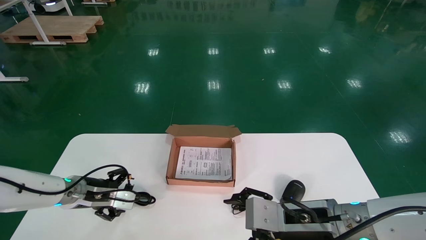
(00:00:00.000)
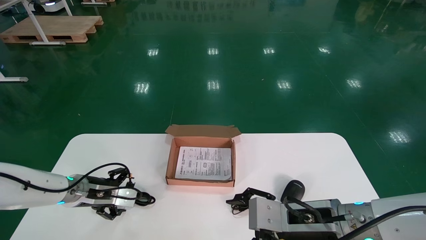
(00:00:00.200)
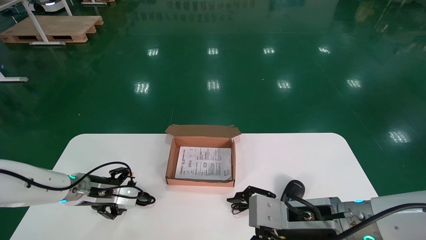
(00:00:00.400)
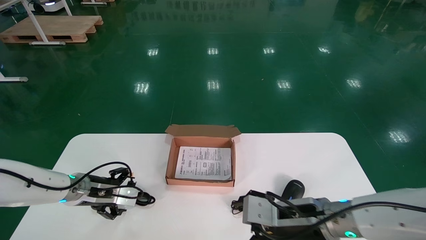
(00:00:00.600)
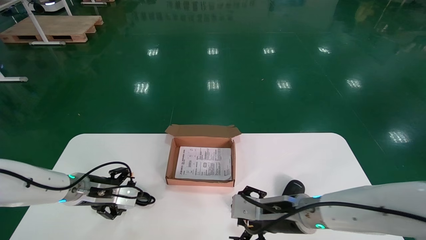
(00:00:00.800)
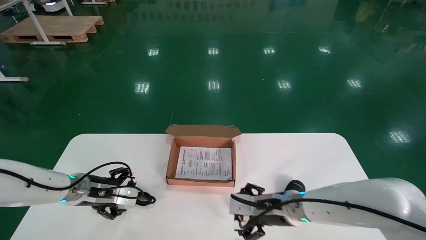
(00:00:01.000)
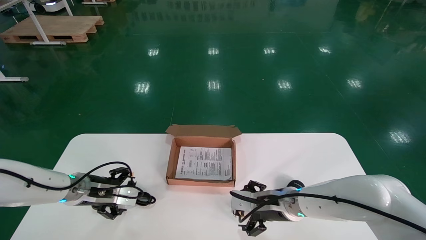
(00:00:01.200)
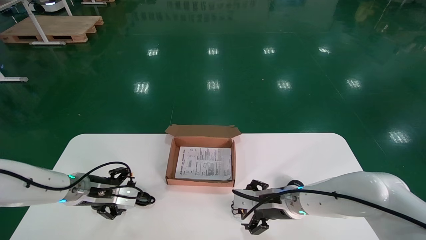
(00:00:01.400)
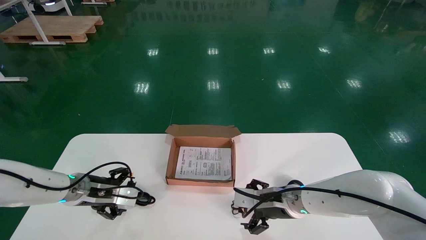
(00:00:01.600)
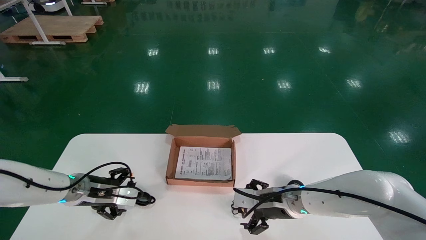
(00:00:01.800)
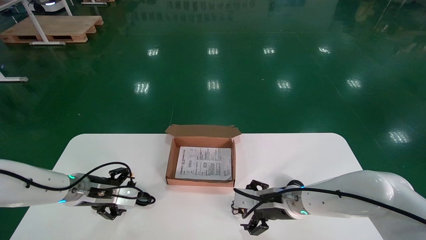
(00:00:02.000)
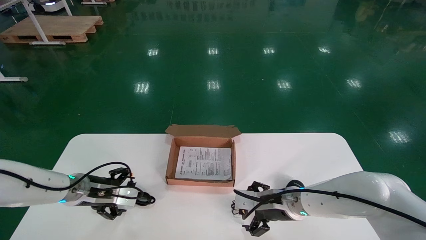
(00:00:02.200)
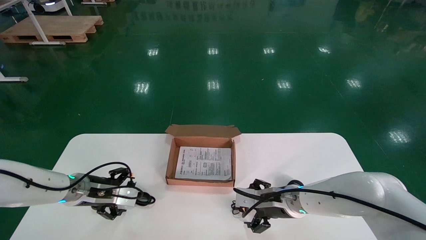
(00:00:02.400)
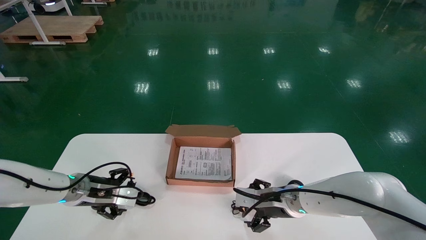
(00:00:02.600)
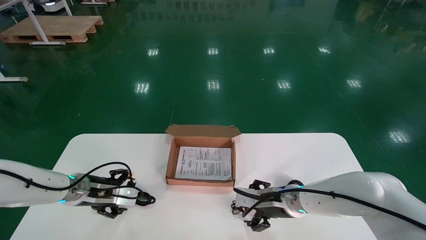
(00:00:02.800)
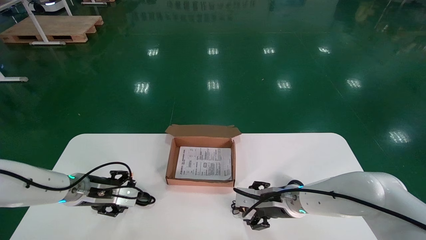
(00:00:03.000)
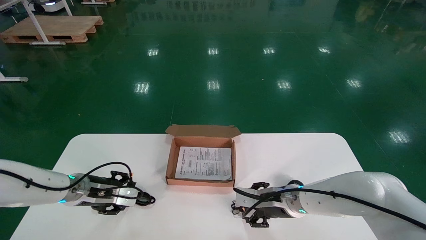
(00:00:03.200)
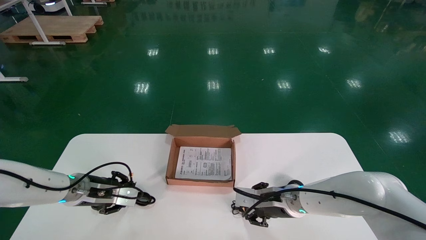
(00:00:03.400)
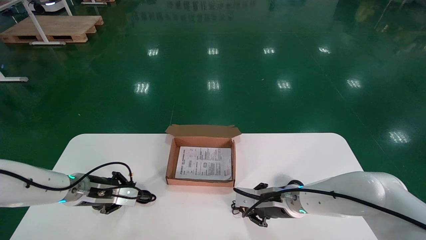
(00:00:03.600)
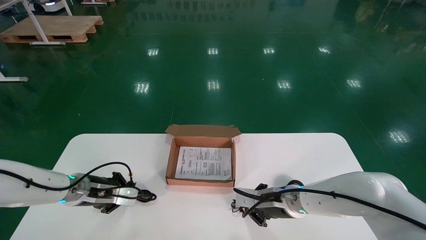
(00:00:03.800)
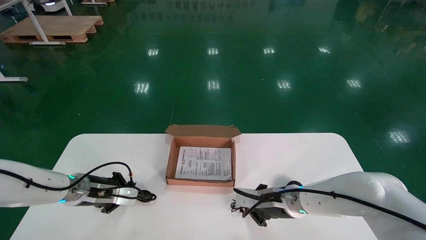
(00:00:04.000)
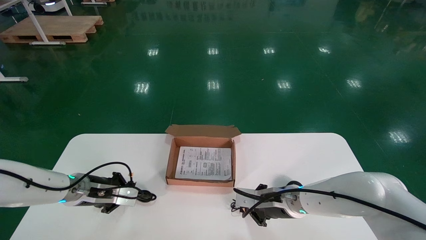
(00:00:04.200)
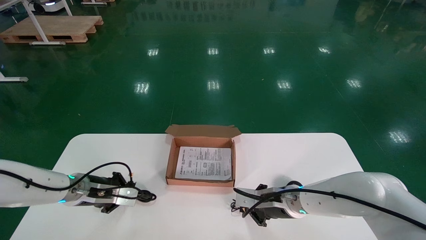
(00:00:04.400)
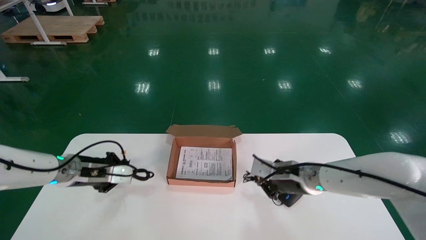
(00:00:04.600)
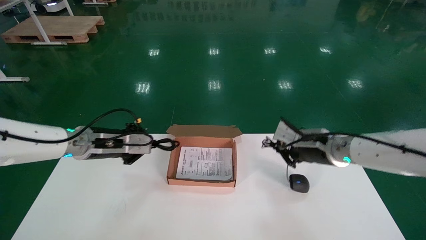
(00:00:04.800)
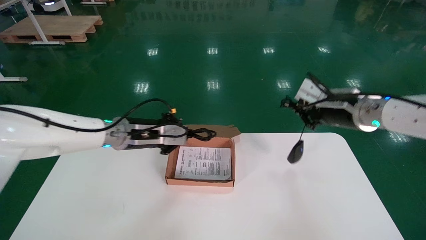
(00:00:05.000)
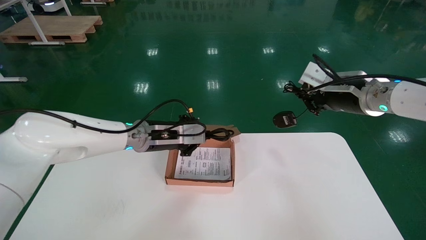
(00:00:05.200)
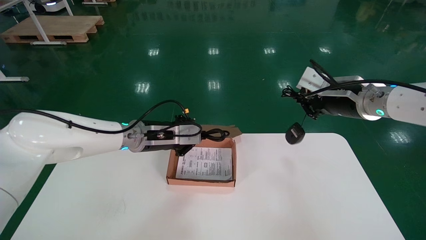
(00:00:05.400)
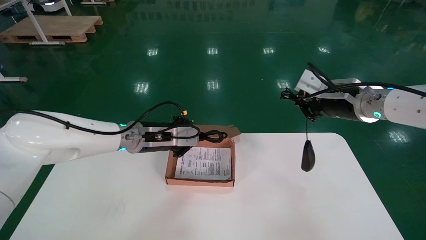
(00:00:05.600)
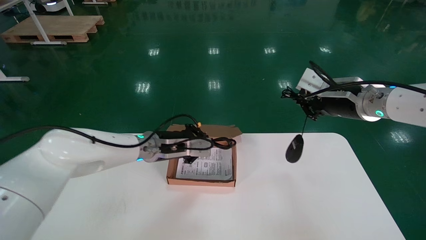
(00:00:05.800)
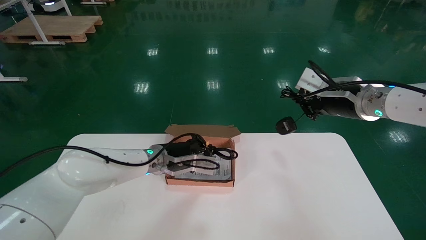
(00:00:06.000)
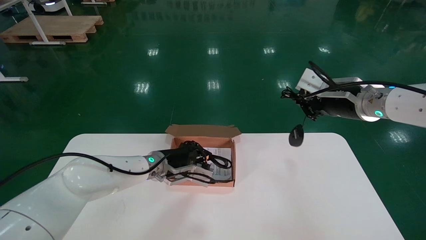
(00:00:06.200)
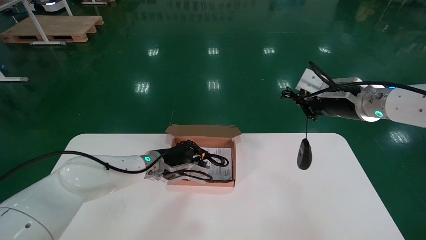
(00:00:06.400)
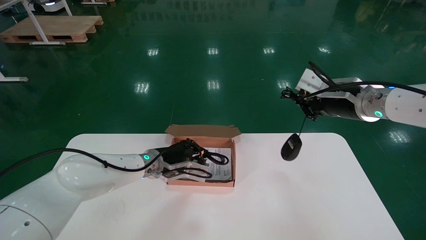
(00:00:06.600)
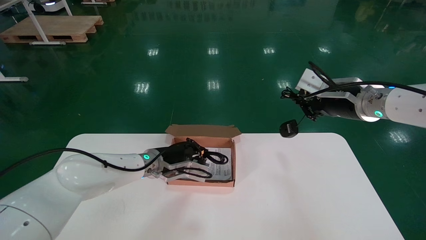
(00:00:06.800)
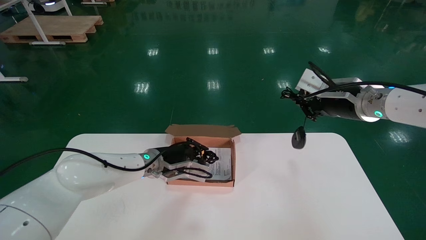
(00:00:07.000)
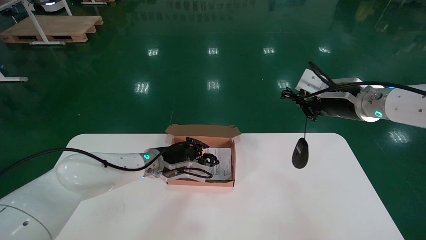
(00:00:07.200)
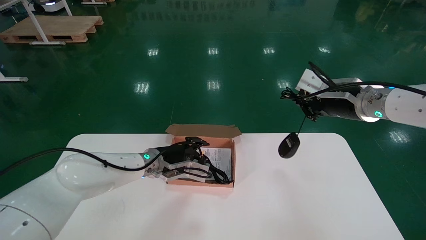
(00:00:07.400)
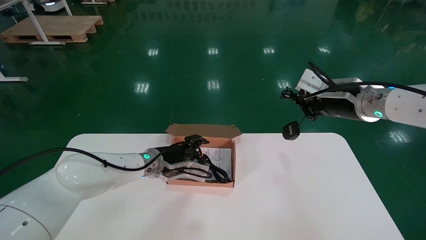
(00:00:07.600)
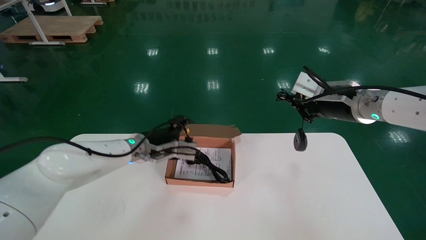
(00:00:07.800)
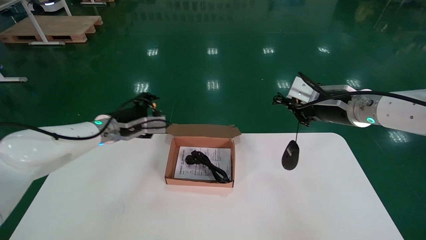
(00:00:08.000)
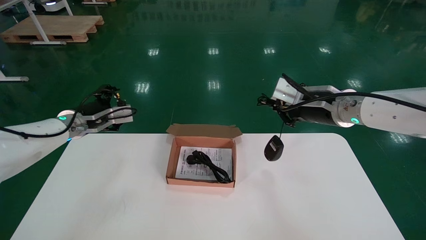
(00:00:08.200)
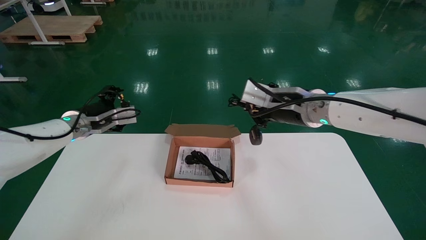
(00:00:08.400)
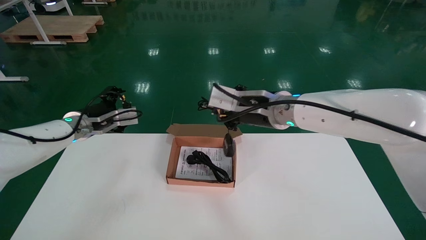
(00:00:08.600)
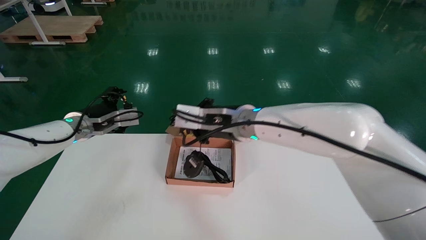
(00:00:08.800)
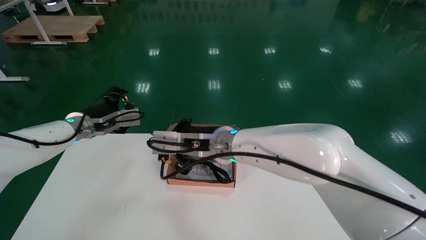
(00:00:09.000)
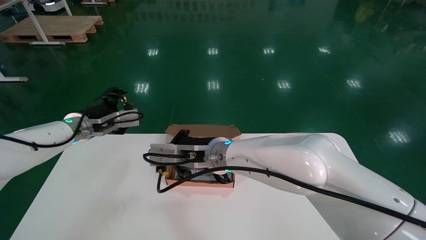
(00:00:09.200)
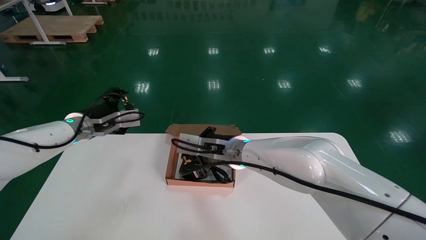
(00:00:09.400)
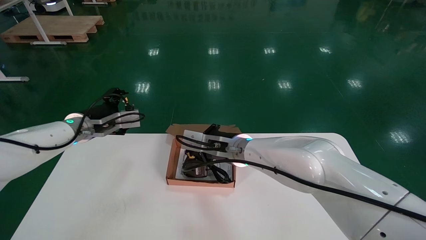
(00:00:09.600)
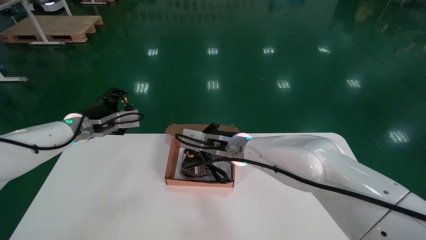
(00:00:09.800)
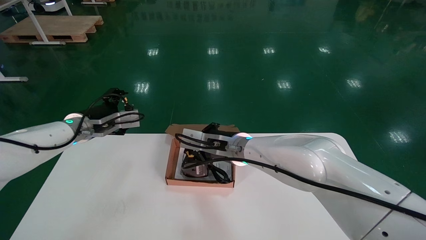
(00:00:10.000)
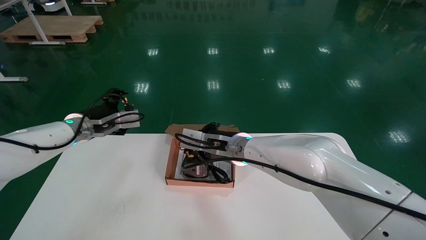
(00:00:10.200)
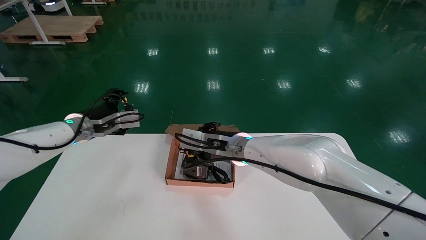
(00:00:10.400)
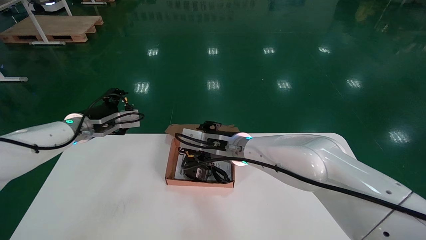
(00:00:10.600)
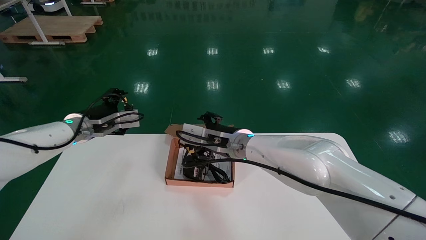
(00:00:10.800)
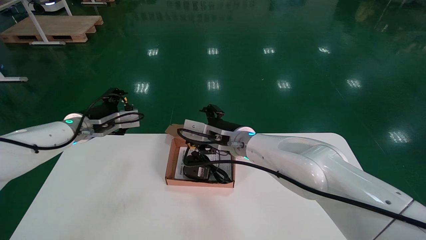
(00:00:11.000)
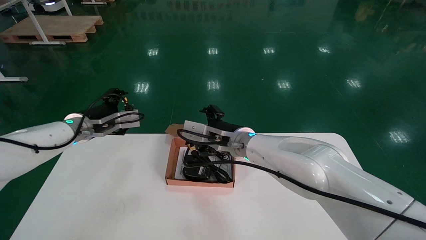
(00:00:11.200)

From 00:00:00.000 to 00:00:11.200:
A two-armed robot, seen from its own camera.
Step, from 00:00:00.000 to 00:00:04.600: Simultaneously pick up the mouse and power cord from the accessory packaging area.
Step, from 00:00:04.800 to 00:00:10.200: Place the mouse and power cord into the box.
From 00:00:00.000 to 00:00:01.600: The right gripper travels forward by about 15 cm.
From 00:00:01.600 to 00:00:03.200: Both grippers stay about where they are.
From 00:00:03.200 to 00:00:04.800: Both grippers travel together upward and to the right, roughly 15 cm. The right gripper closes its fingers. Meanwhile the left gripper closes its fingers.
From 00:00:04.800 to 00:00:06.400: The left gripper shifts about 15 cm to the right and downward. The right gripper heads upward, covering about 10 cm.
From 00:00:06.400 to 00:00:08.000: The left gripper shifts about 15 cm to the left and upward, and opens up.
From 00:00:08.000 to 00:00:09.600: The left gripper is displaced to the left by about 5 cm, while the right gripper moves to the left and downward, roughly 25 cm.
From 00:00:09.600 to 00:00:11.200: The right gripper opens its fingers.

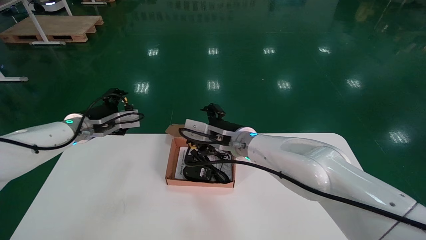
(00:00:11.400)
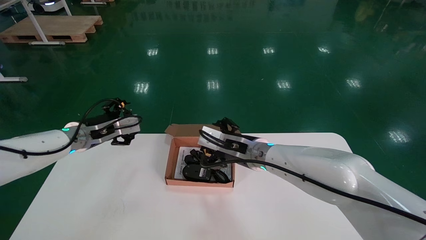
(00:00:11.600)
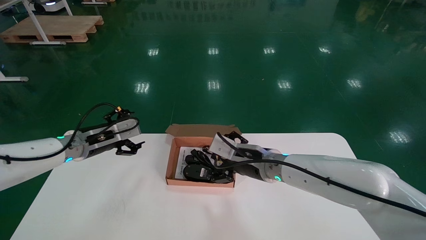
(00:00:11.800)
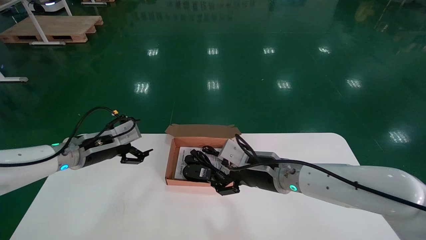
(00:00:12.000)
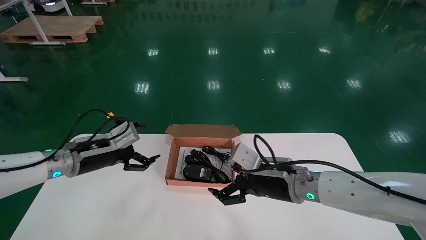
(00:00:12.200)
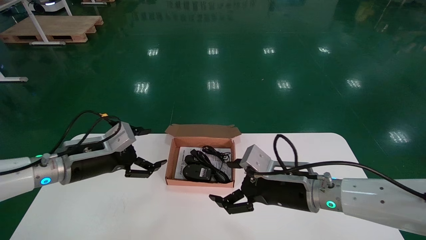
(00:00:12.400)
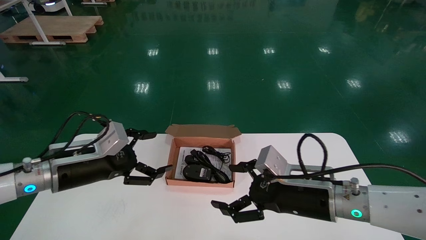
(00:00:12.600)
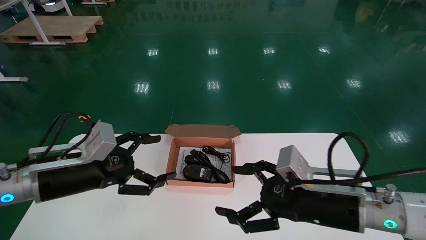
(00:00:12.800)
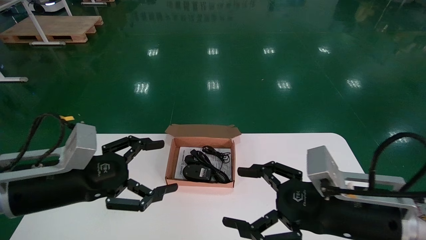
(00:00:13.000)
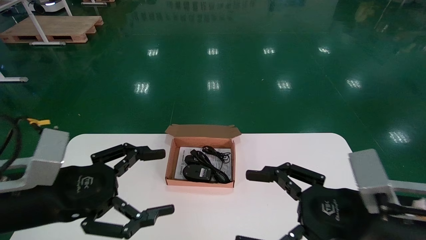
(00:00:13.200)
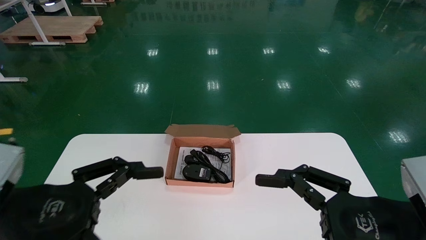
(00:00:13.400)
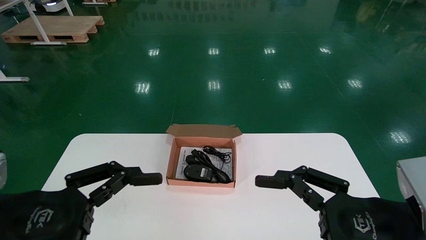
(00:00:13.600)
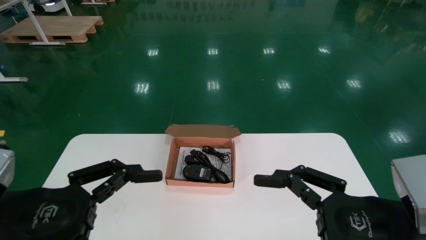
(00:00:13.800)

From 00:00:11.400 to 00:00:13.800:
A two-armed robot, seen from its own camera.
From 00:00:11.400 to 00:00:12.600: The right gripper goes roughly 20 cm to the right and backward; the left gripper travels backward by roughly 15 cm.
From 00:00:12.600 to 00:00:13.800: The right gripper heads backward and to the right, covering about 15 cm; the left gripper is displaced backward by about 15 cm.
